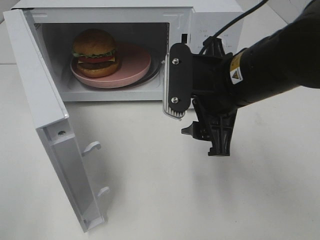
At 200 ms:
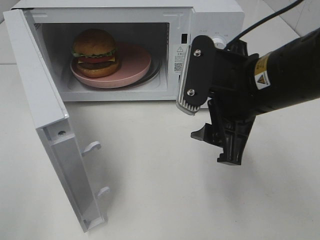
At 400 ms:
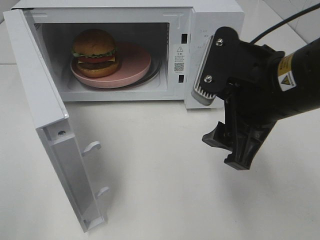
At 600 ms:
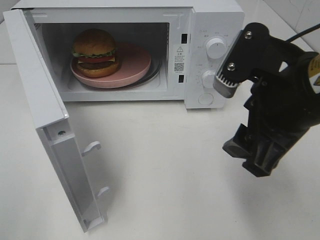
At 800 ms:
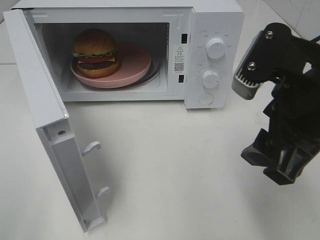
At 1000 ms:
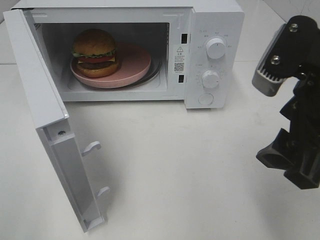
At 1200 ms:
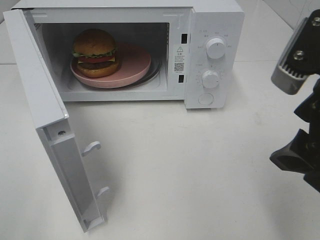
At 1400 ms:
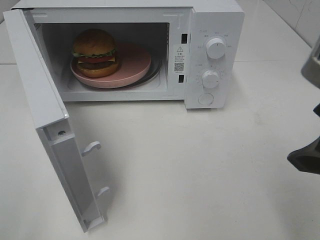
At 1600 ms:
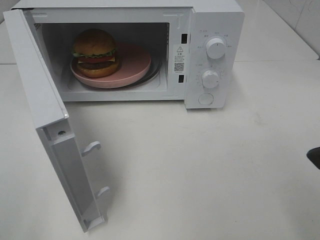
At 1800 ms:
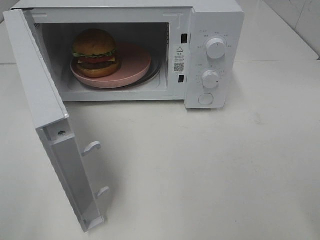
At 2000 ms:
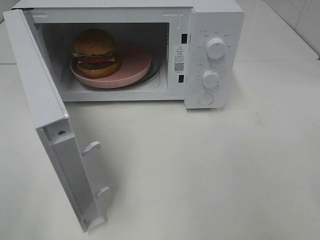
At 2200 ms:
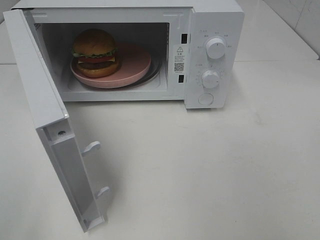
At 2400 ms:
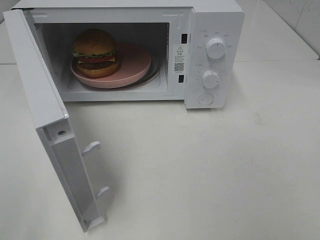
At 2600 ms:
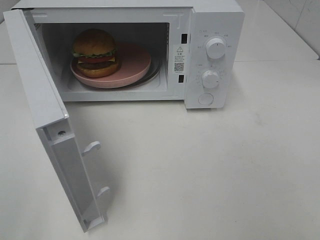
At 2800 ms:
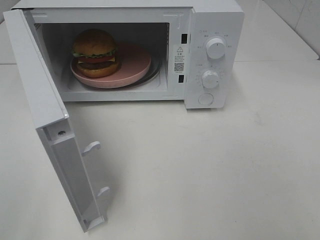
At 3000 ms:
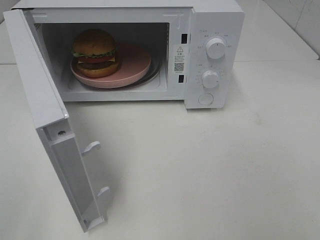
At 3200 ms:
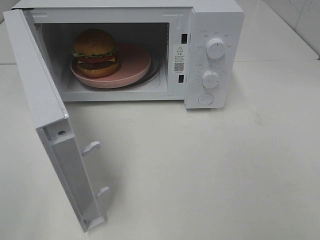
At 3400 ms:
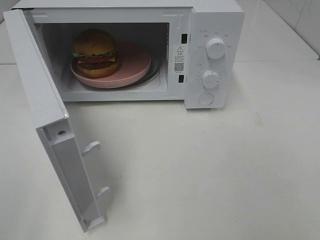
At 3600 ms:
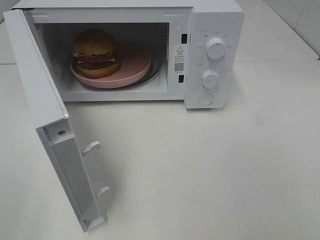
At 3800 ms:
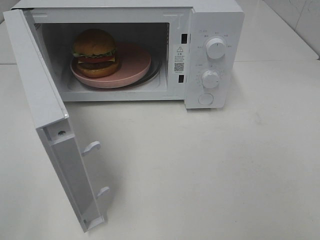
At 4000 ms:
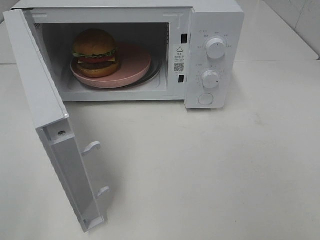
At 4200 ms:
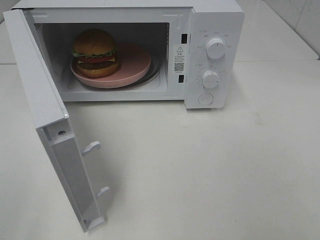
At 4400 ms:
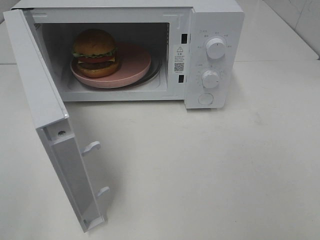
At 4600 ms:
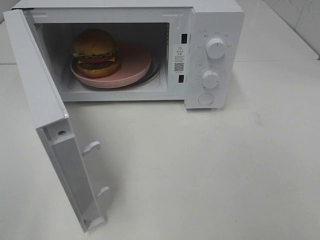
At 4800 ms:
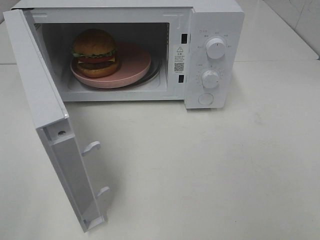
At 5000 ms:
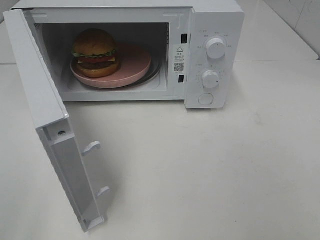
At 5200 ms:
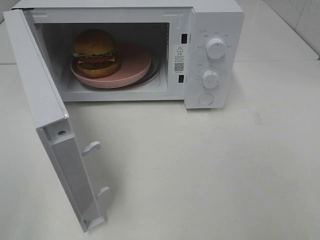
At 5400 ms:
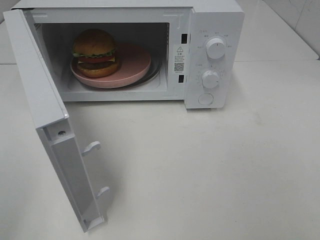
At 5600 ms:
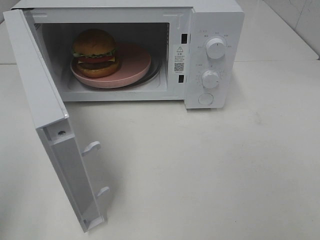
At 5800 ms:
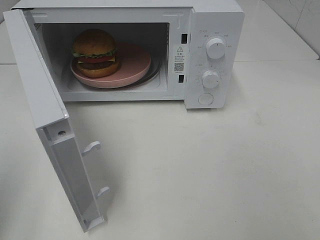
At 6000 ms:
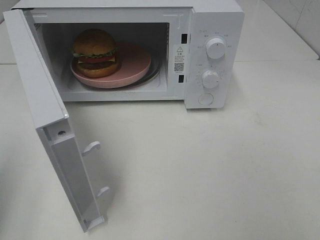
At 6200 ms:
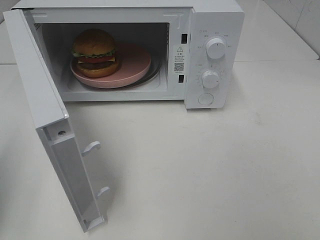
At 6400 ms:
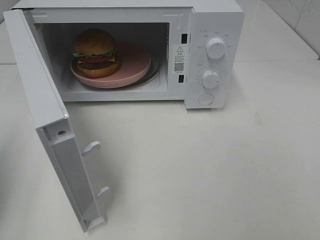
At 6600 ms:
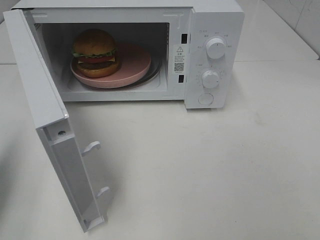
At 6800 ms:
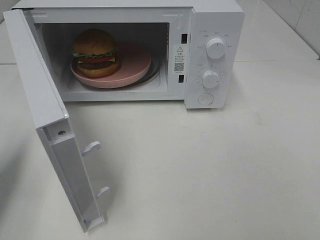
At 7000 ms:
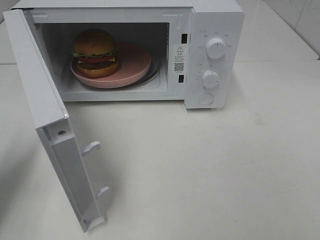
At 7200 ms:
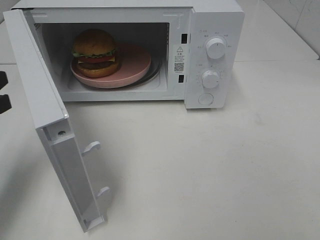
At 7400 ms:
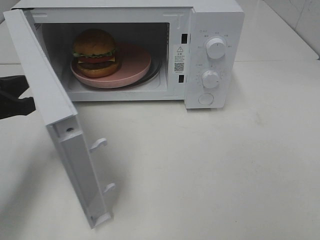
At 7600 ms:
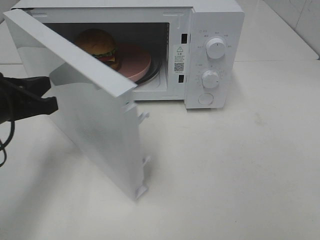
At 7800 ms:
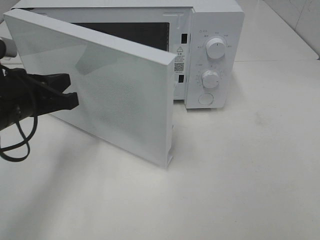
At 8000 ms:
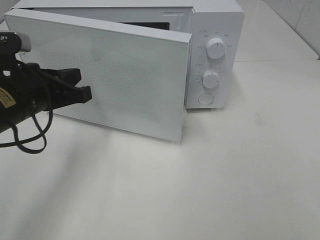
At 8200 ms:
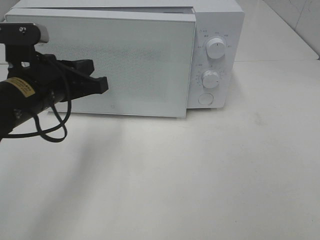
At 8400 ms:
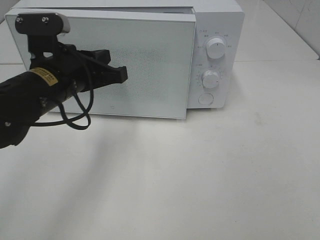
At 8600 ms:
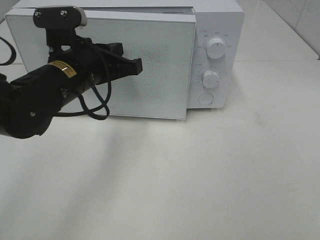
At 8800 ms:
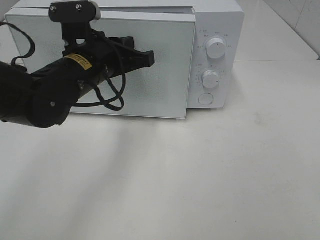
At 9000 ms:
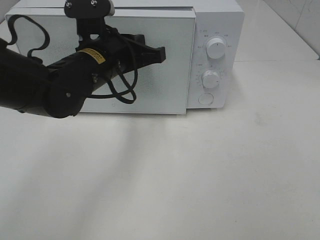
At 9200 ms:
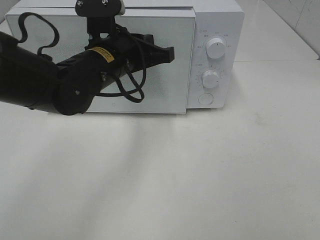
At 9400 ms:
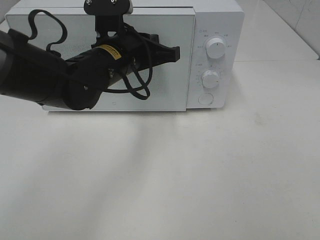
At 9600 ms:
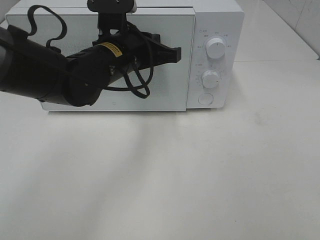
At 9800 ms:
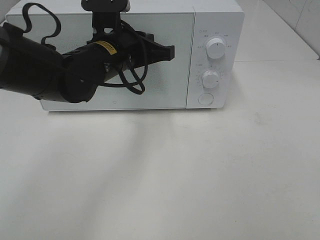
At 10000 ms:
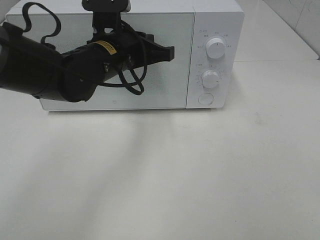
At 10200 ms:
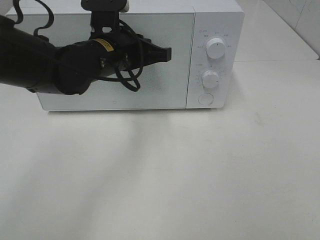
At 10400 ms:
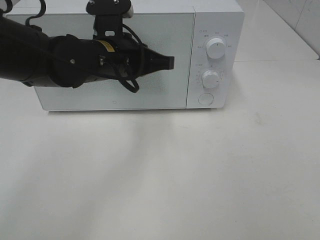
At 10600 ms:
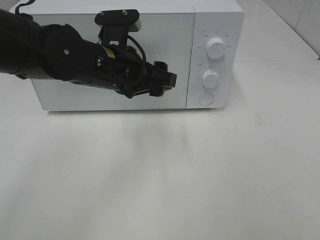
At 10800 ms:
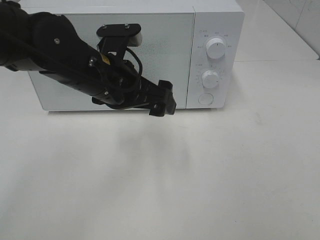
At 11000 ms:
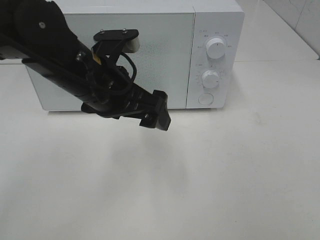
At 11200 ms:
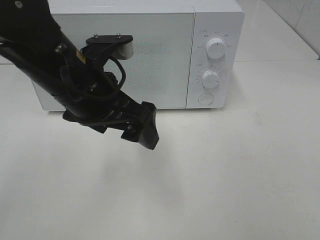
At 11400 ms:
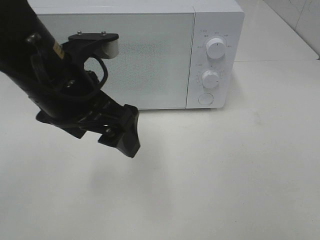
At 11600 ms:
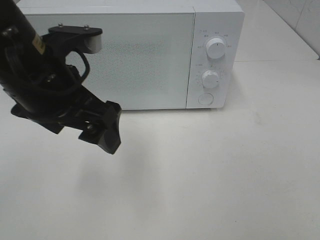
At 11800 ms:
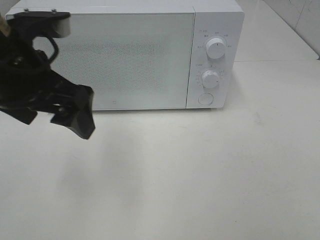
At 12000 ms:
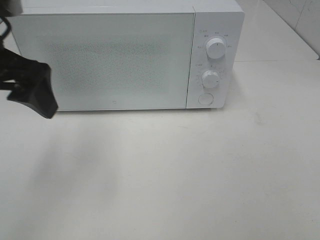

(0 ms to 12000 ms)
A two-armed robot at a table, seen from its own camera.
Task of the whole recording: Heat the burger.
Step, 0 ms - 10200 ms: Left hand: close the microwave door.
0 ms - 1600 ms: The right gripper goes approximately 20 cm backward, to the right and upward.
1600 ms - 3000 ms: The right gripper heads backward and to the right, covering approximately 15 cm.
3000 ms - 4400 ms: Both grippers stay put.
6000 ms - 7600 ms: The left gripper is displaced forward, downward and to the right by about 20 cm.
7600 ms - 9000 ms: The left gripper travels to the right and forward by about 15 cm.
9000 ms - 10400 ms: The grippers stay close to where they were, moving slightly.
10400 ms - 12000 ms: The left gripper is displaced to the left, upward and backward by about 20 cm, and opens.

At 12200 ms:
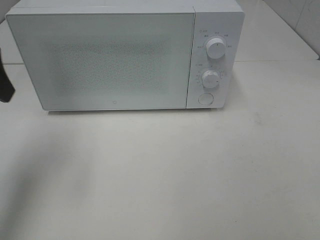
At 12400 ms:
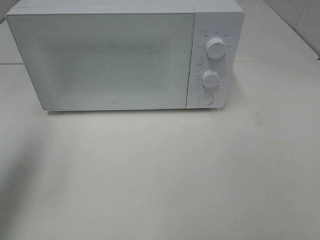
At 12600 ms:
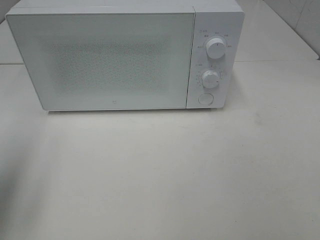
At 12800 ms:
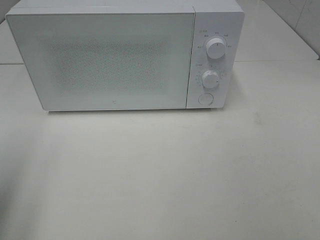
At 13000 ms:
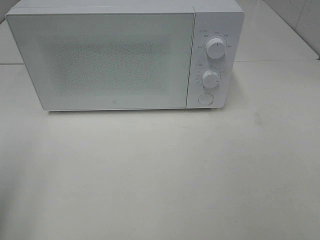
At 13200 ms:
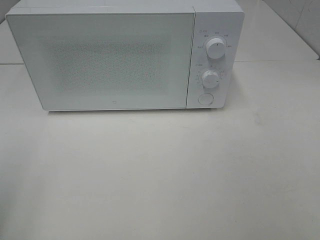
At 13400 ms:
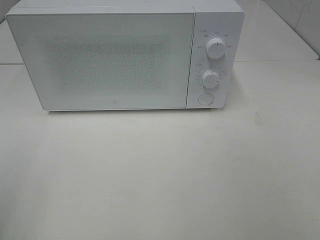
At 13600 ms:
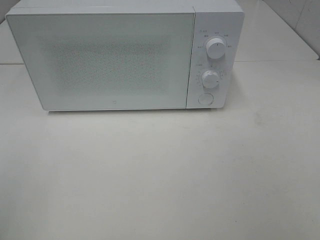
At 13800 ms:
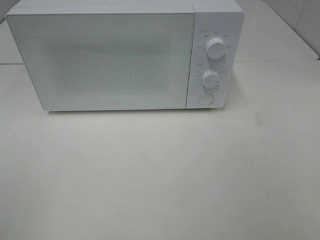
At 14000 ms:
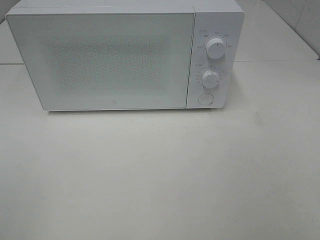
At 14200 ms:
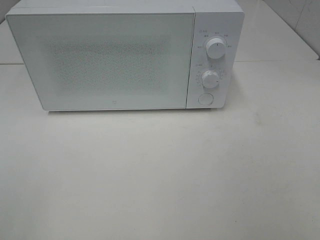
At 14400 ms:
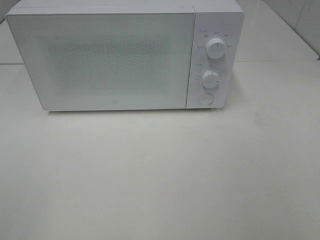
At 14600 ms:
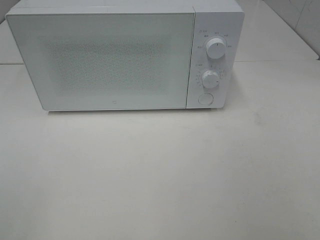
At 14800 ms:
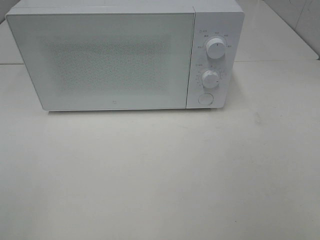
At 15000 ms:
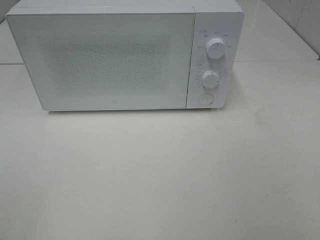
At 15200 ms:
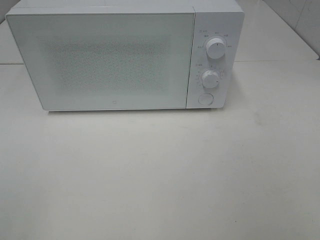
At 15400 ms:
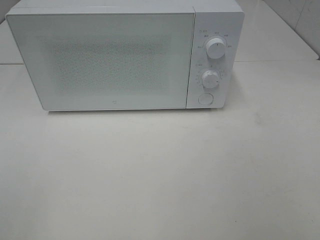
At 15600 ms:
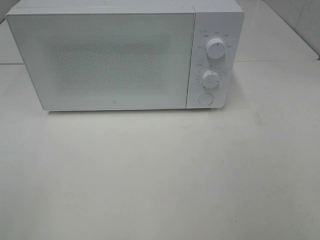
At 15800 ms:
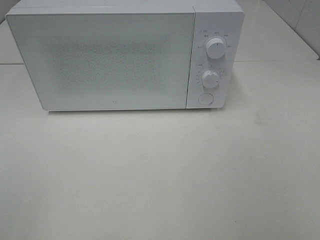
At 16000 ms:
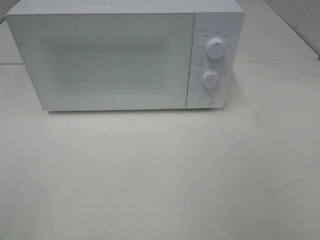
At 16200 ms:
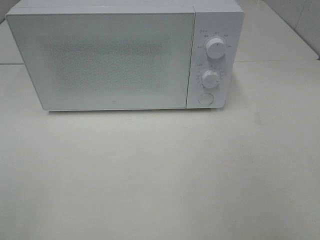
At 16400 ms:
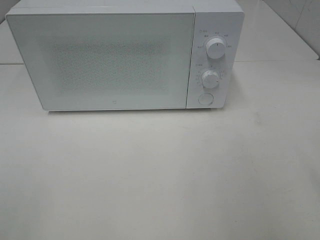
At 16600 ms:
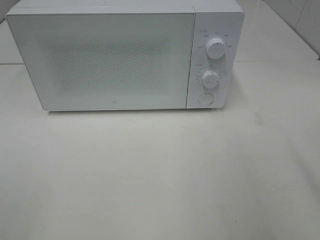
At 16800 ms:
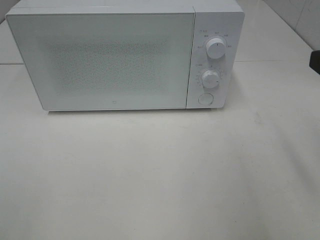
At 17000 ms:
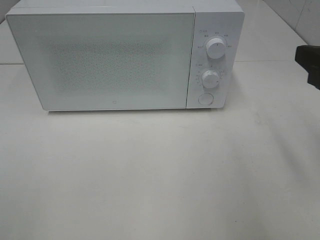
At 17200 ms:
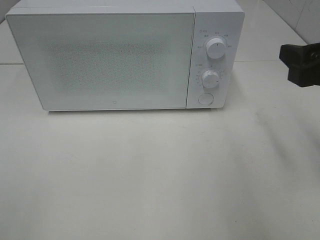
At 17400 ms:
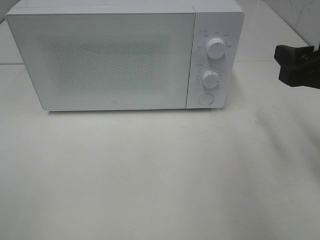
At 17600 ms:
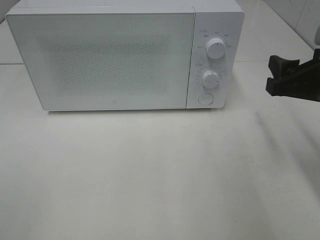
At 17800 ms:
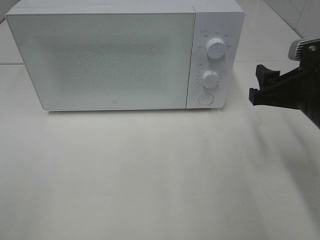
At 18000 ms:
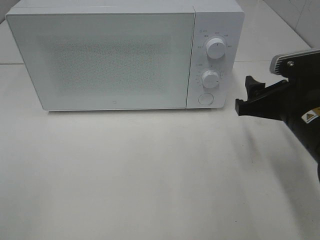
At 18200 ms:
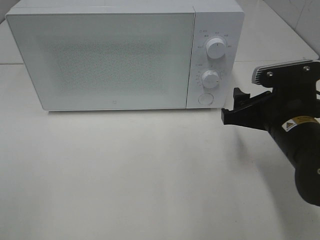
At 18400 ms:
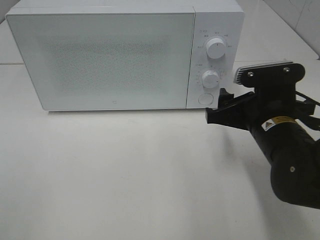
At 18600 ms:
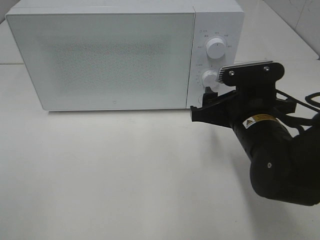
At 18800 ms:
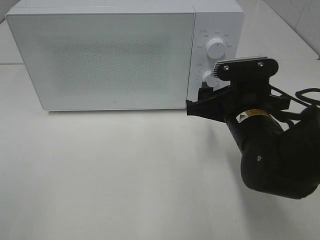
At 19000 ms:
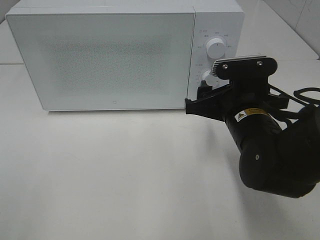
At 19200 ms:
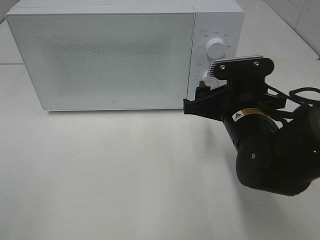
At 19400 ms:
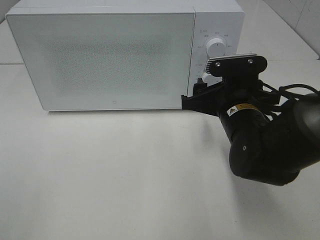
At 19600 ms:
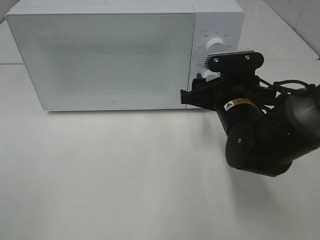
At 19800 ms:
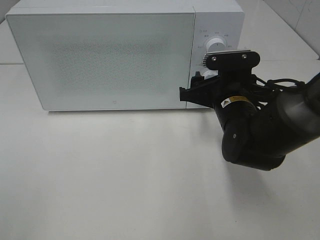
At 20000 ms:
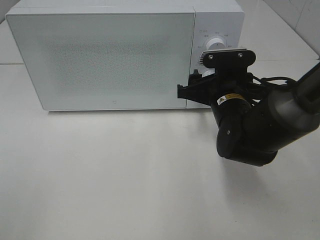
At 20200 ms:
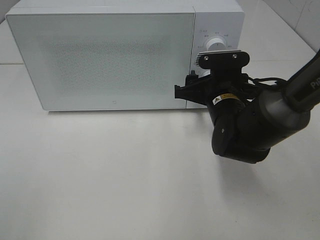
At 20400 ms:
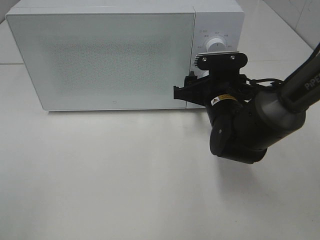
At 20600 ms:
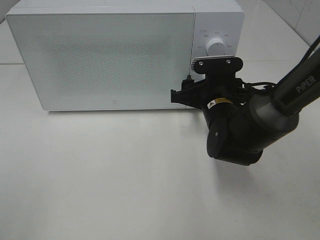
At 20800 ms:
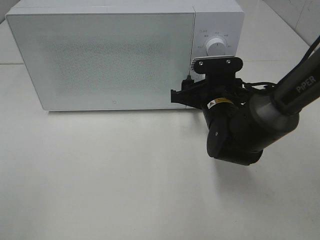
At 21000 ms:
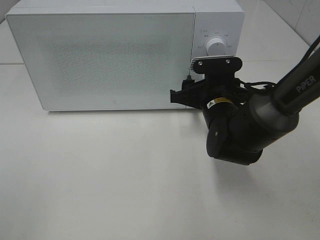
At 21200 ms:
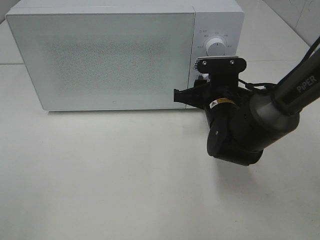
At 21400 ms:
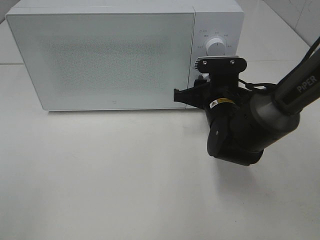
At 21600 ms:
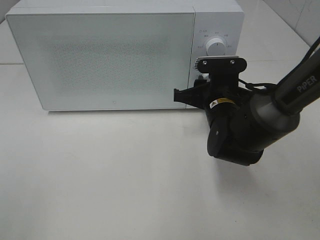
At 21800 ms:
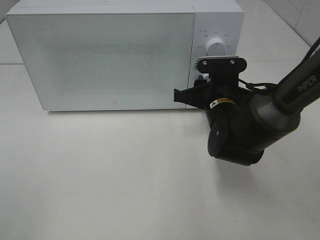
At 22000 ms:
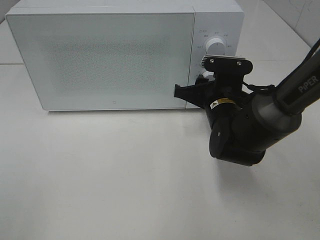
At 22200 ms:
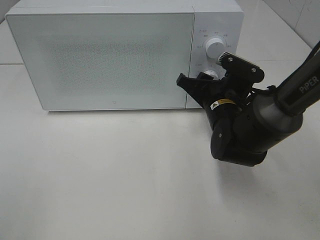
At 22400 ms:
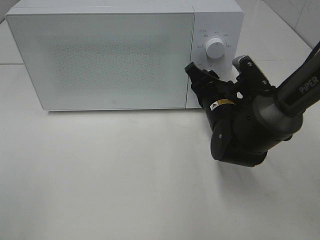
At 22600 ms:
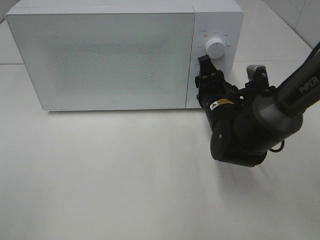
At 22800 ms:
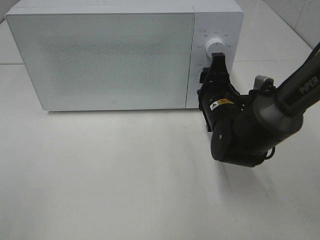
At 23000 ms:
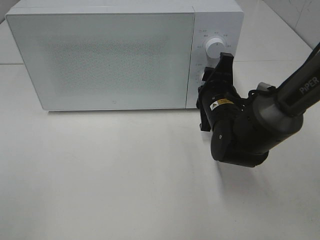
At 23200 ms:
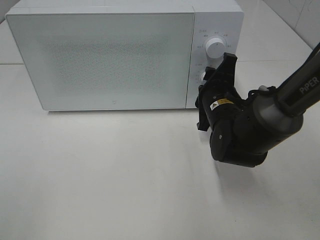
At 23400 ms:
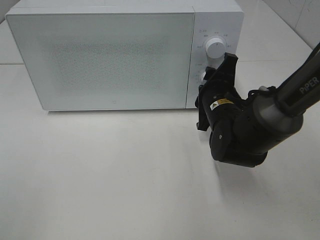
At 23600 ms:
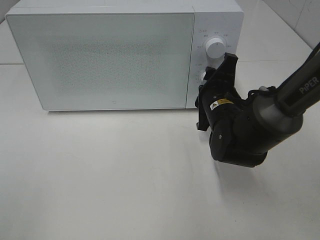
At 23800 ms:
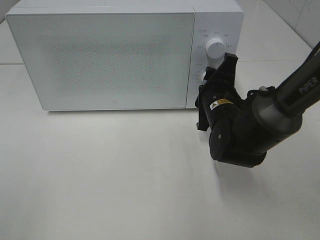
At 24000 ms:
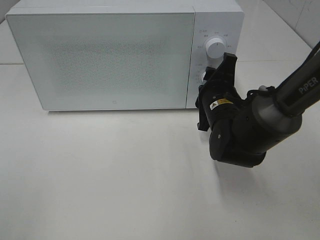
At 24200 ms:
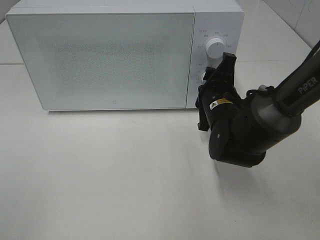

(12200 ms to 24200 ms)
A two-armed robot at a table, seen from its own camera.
Task of the whole recording: Heat the burger.
12200 ms - 13800 ms: The left gripper heads backward, covering approximately 25 cm.
16600 ms - 18200 ms: The right gripper goes about 20 cm downward, forward and to the left.
18200 ms - 19800 ms: The right gripper is displaced forward and to the left by about 10 cm.
19800 ms - 21200 ms: The right gripper closes up.
